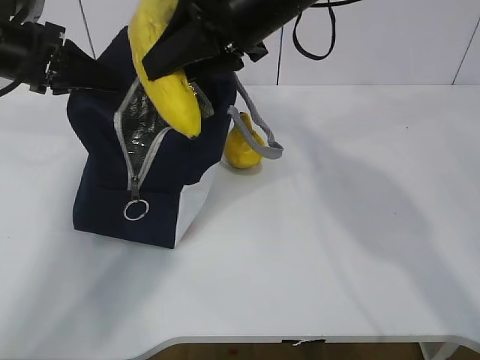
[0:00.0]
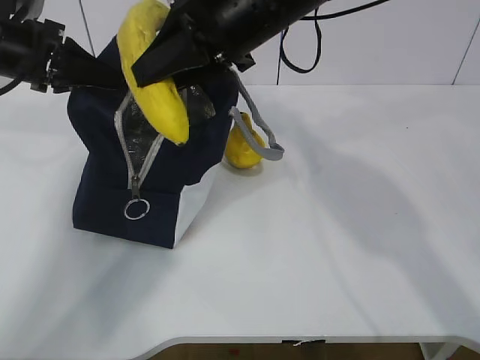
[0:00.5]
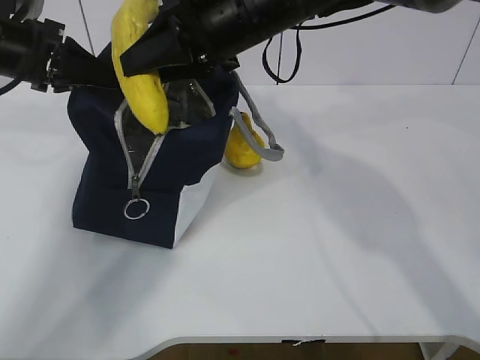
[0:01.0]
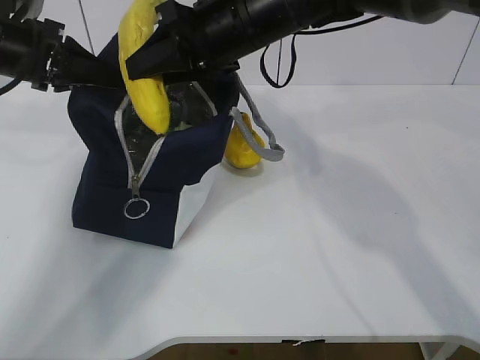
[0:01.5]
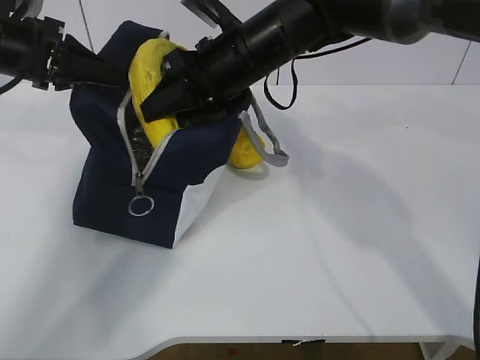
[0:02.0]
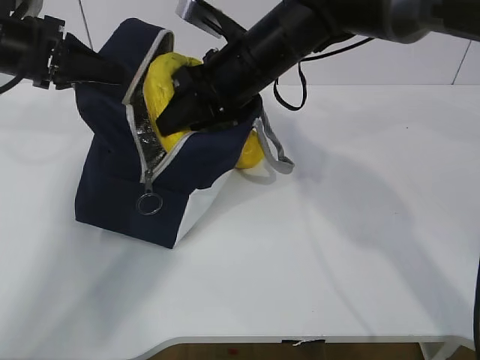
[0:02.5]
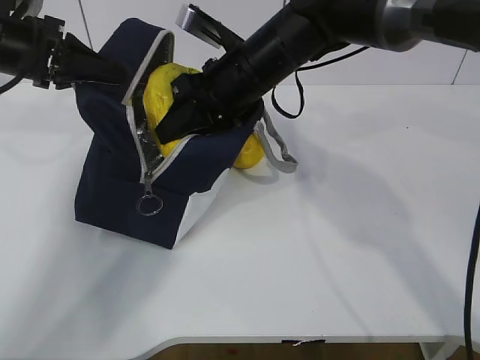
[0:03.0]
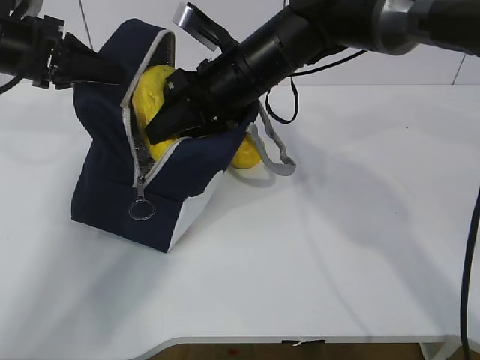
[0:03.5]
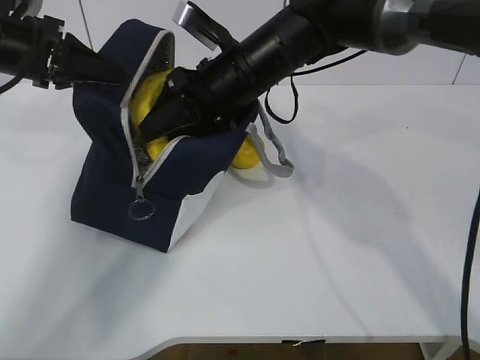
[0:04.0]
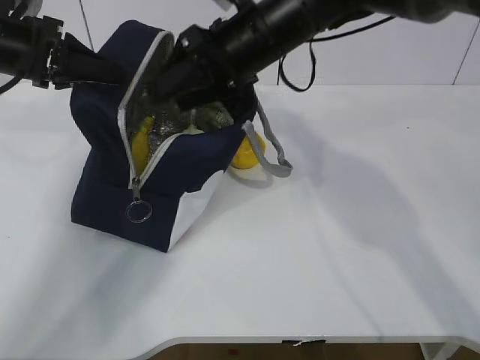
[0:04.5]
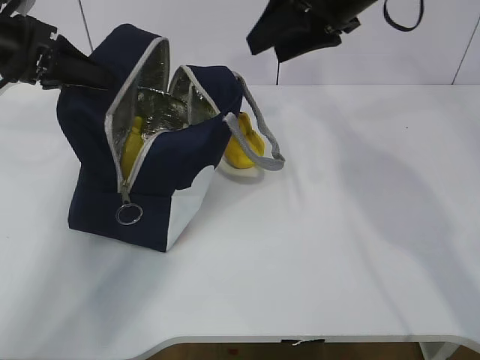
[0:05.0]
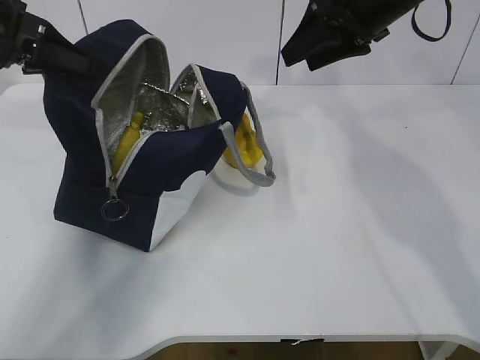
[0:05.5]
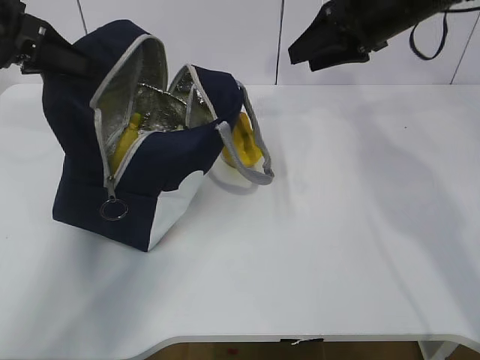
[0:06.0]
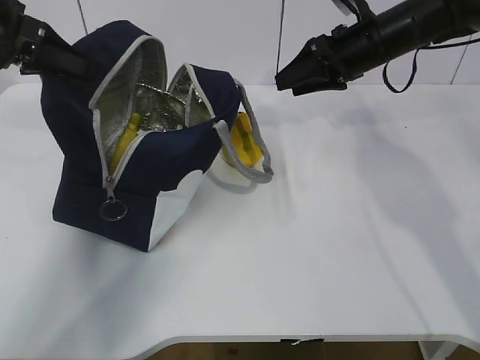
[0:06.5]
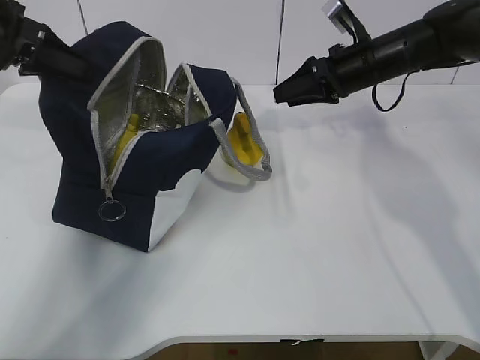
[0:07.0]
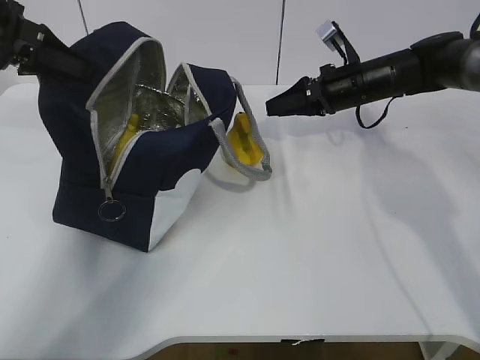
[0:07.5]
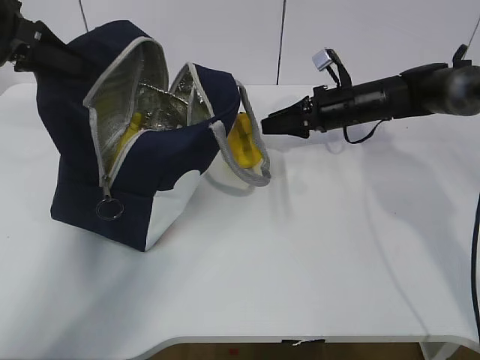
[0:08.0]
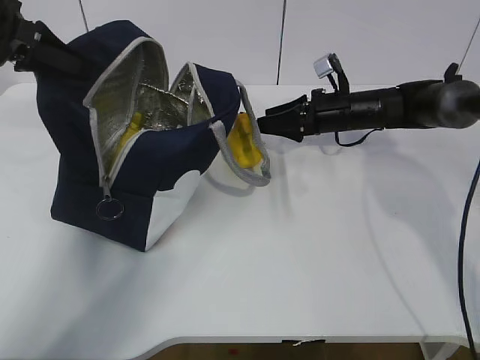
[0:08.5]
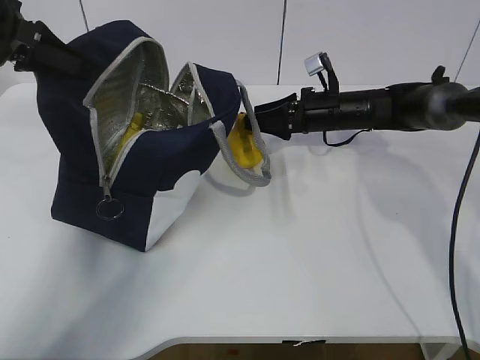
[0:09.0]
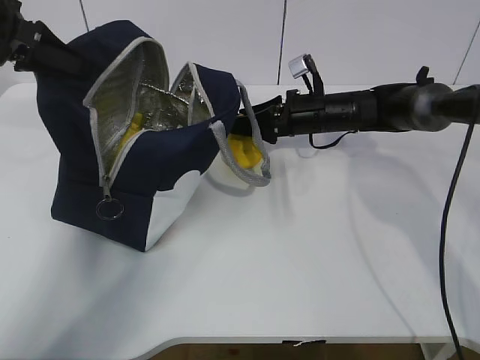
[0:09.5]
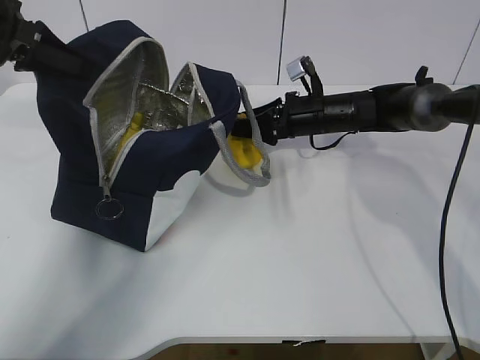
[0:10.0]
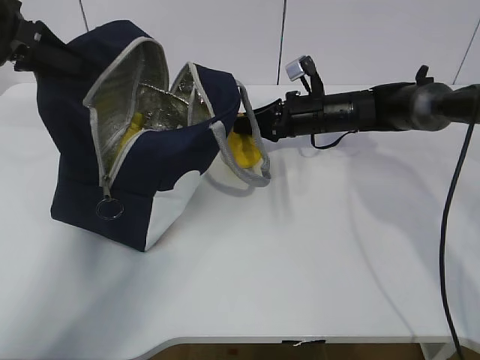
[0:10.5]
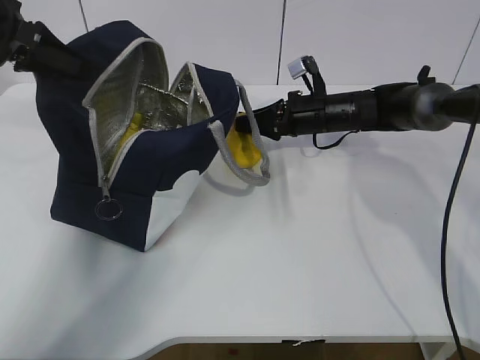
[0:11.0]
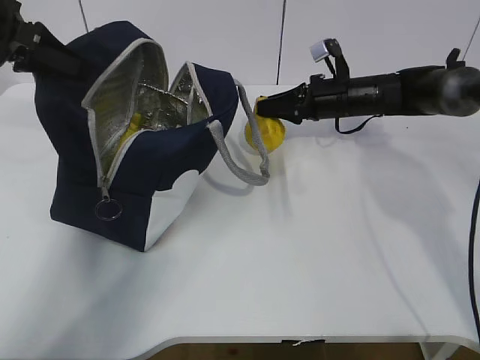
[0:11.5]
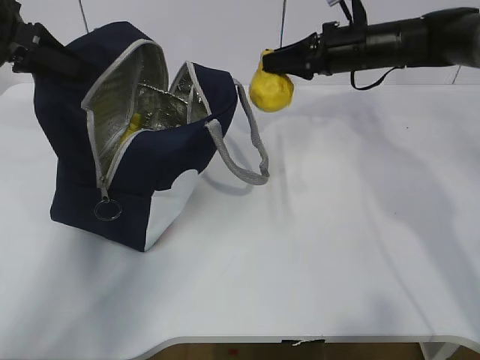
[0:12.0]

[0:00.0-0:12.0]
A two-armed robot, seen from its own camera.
Step, 0:00.0 to 0:03.0: Grab the pear with your right hand.
Step, 0:03.5 to 0:05.5: Secure the lunch bag with your left hand.
Step, 0:06.0 to 0:08.0: Grab the lunch bag with your right hand.
0:00.0 to 0:02.0: The right gripper shifts roughly 5 cm downward.
0:02.0 to 0:04.0: The right gripper opens.
0:04.0 to 0:06.0: The right gripper goes about 20 cm to the right.
0:06.0 to 0:08.0: The right gripper is displaced downward by about 15 cm.
0:08.0 to 0:10.0: The grippers make only small movements.
0:10.0 to 0:12.0: The right gripper goes about 10 cm upward, and closes.

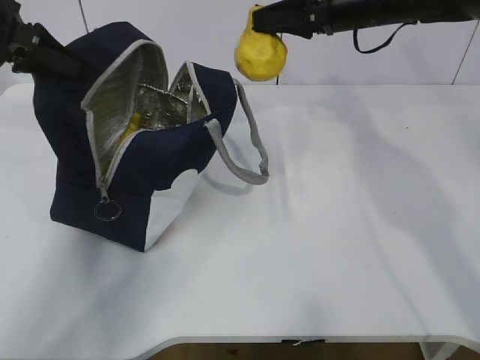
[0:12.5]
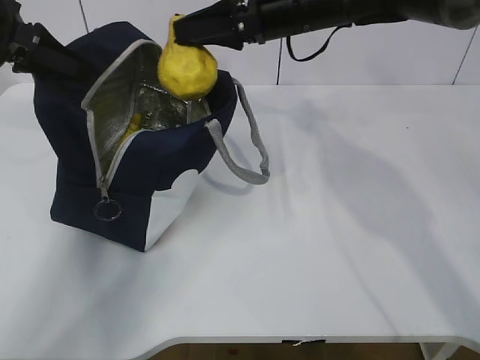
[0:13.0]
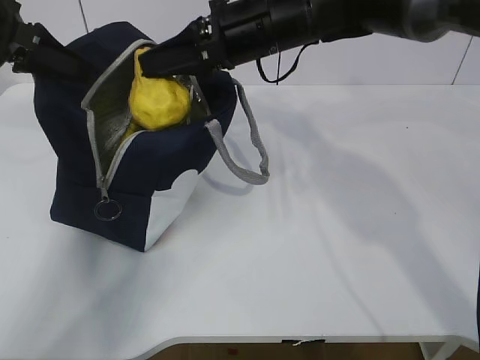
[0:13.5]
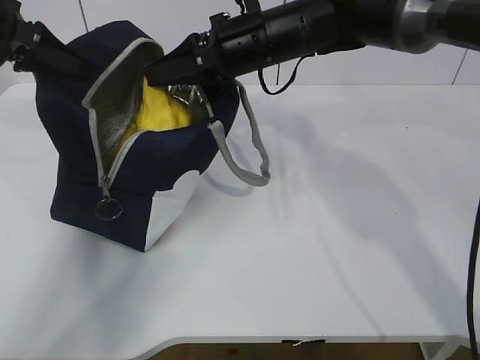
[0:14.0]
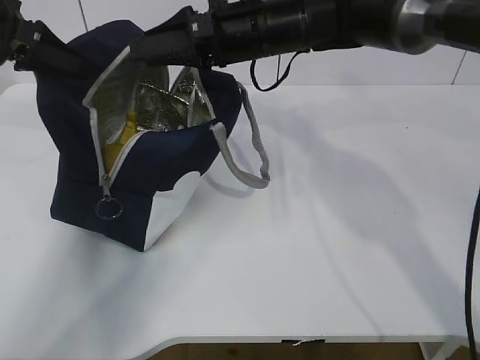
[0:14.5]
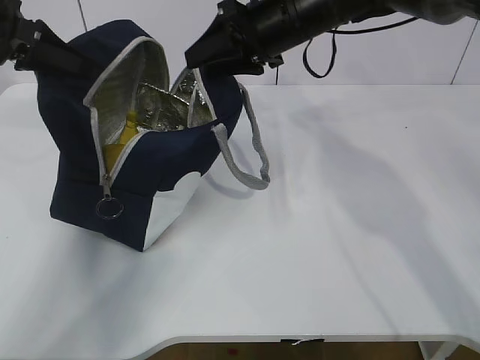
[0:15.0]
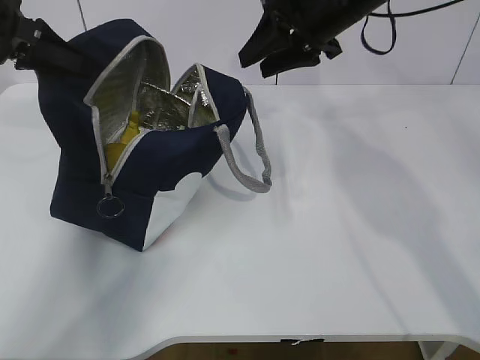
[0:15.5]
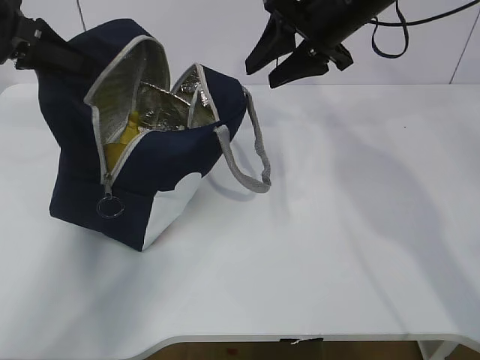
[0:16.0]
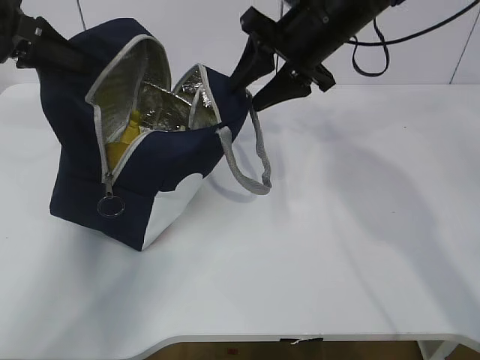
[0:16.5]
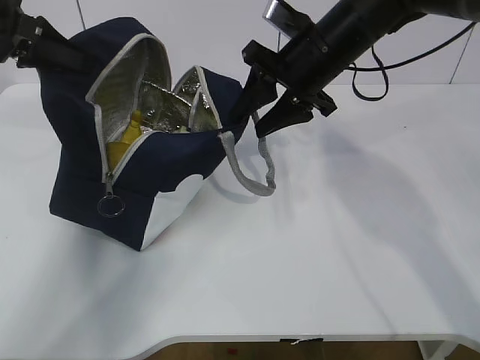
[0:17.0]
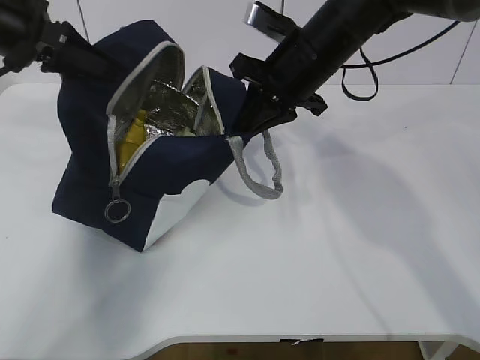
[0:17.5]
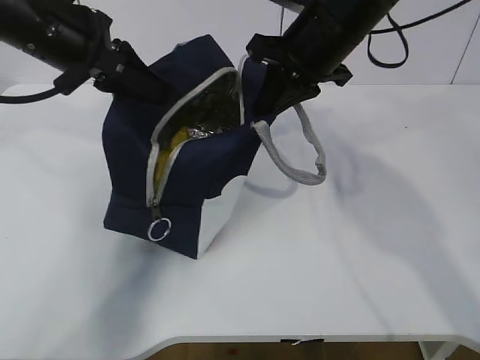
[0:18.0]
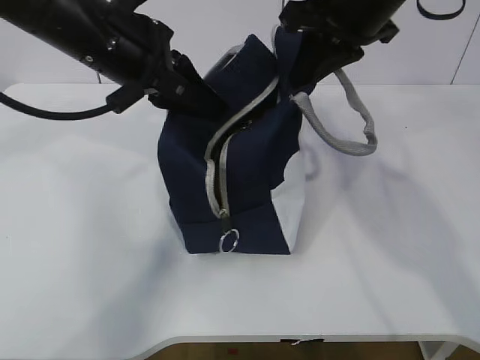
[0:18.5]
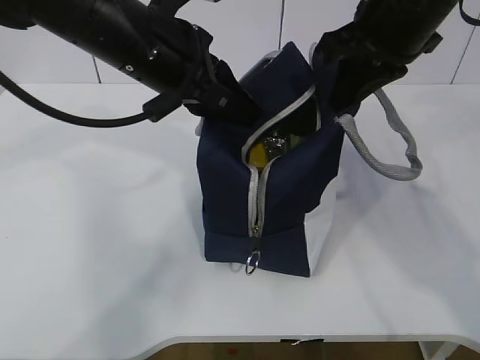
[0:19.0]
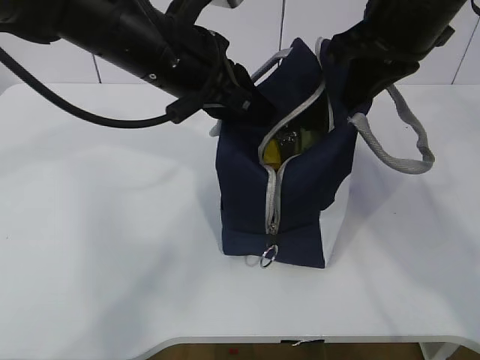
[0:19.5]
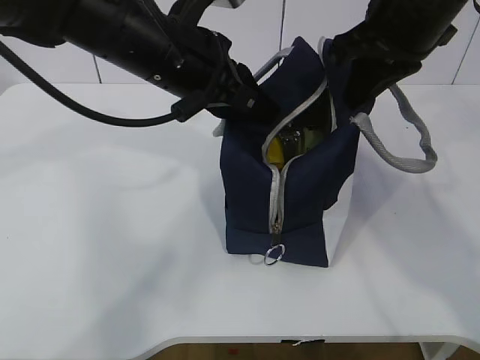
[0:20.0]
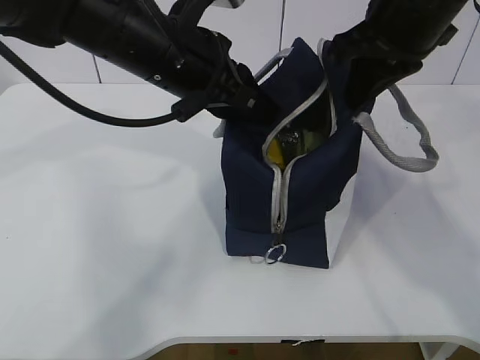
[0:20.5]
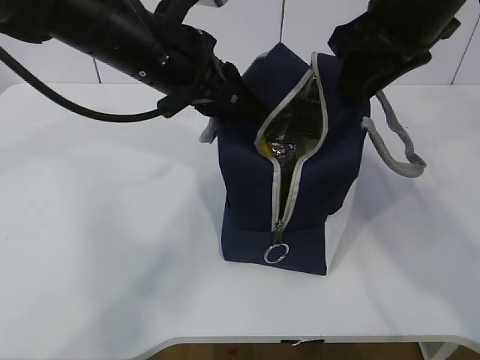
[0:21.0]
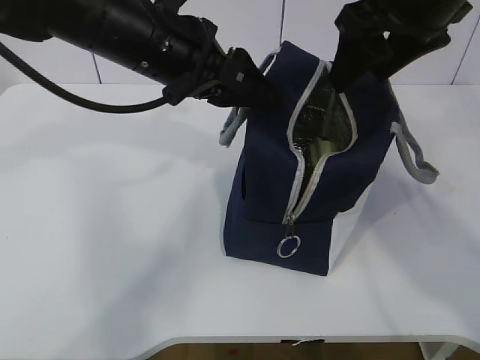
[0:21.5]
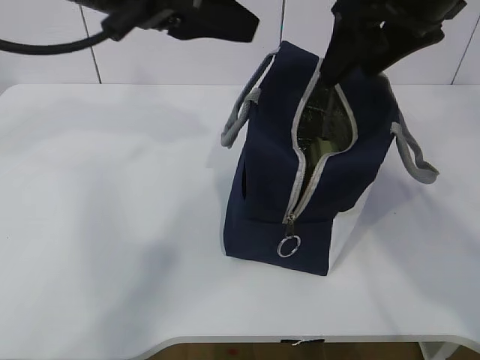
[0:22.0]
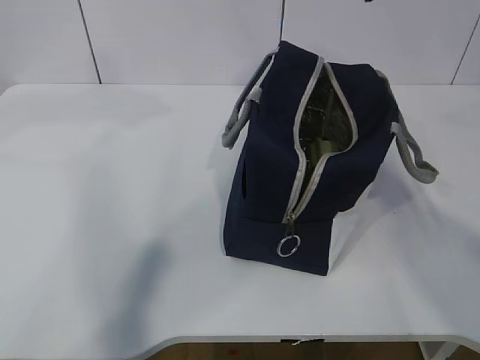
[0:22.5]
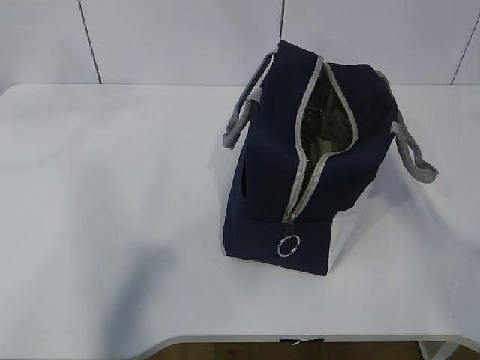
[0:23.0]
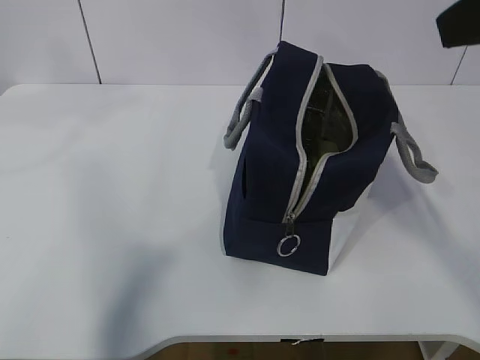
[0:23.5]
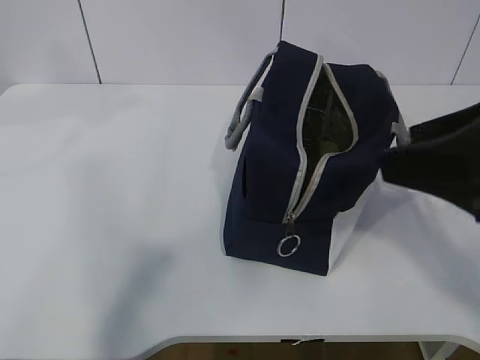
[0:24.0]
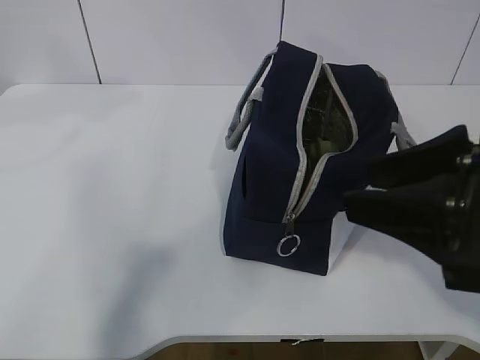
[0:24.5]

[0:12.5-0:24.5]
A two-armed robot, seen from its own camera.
0:12.5 to 0:14.5: The right gripper travels to the left by about 15 cm.
0:14.5 to 0:16.5: The right gripper travels to the right by about 5 cm.
0:16.5 to 0:18.5: The left gripper moves to the right, approximately 15 cm; the right gripper heads backward and upward, covering roughly 10 cm, and closes up.
0:18.5 to 0:20.5: The left gripper shifts approximately 5 cm to the right.
0:20.5 to 0:22.5: The left gripper shifts approximately 15 cm upward and to the left, and opens. The right gripper moves upward and backward, some 10 cm, and opens its fingers.
0:22.5 to 0:24.5: The left gripper shifts by about 5 cm, while the right gripper shifts about 20 cm downward and backward.

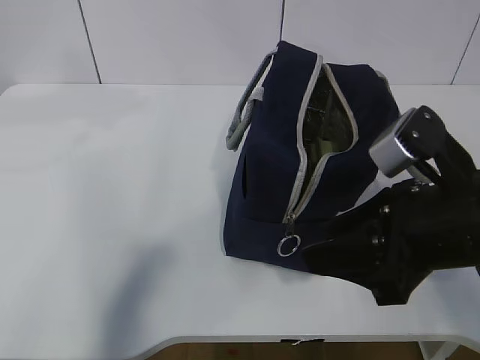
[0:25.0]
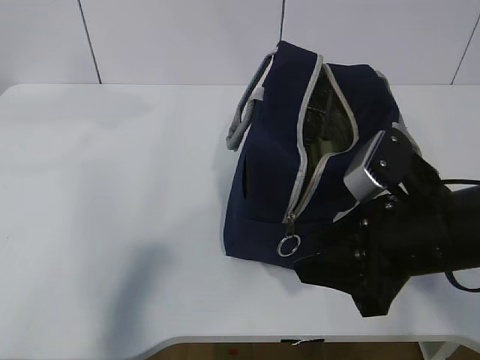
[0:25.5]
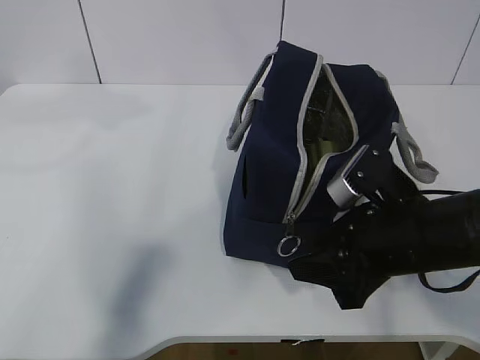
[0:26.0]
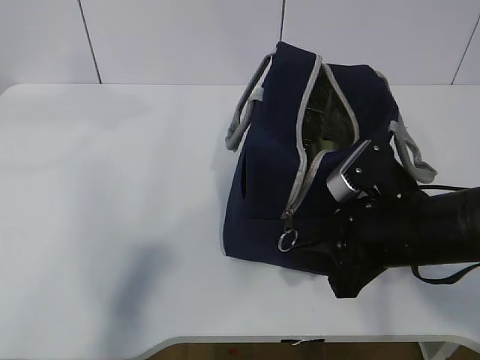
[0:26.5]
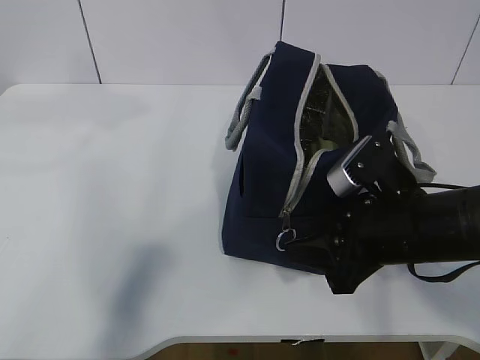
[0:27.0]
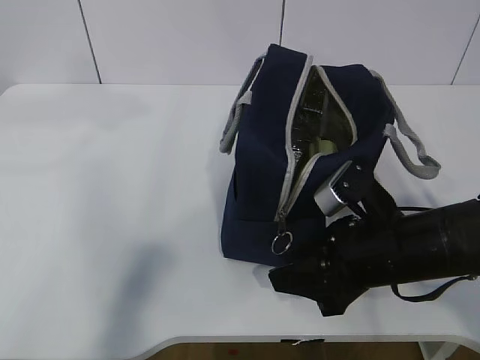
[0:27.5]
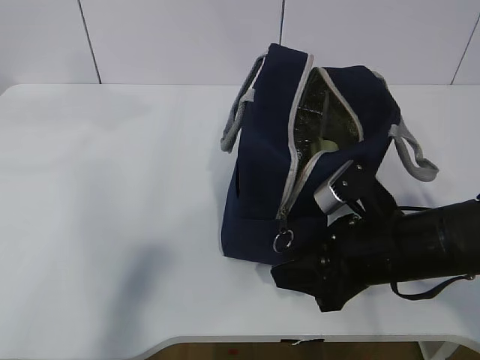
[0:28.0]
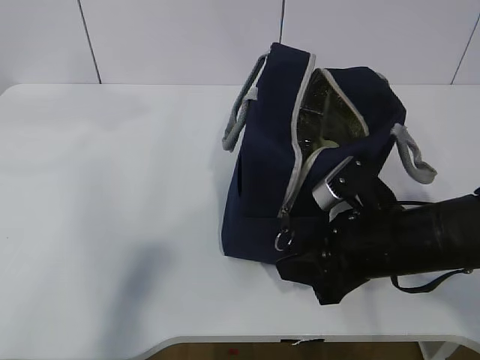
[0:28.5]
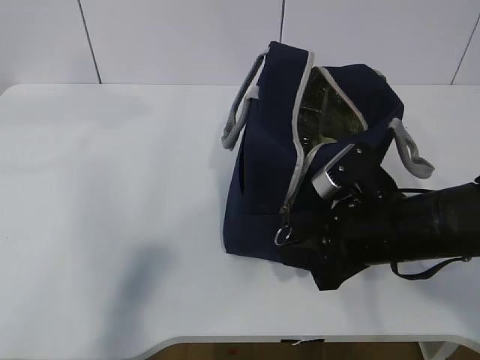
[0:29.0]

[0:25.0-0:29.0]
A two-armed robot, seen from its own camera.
0:25.0 to 0:27.0: The right gripper moves downward, approximately 5 cm.
0:27.0 to 0:29.0: The grippers make only small movements.
